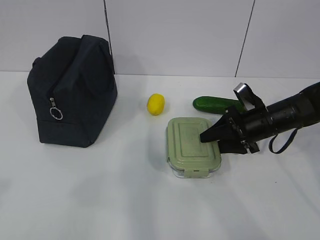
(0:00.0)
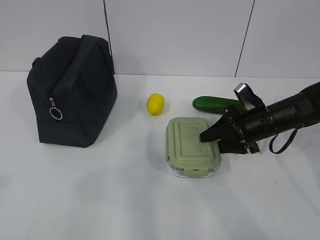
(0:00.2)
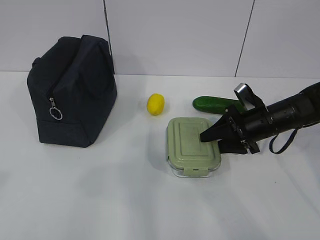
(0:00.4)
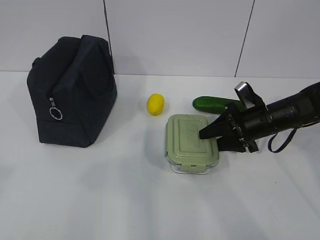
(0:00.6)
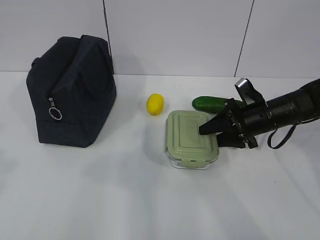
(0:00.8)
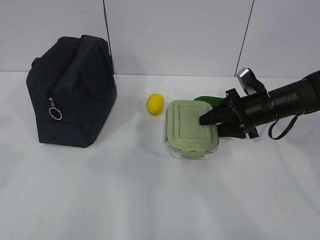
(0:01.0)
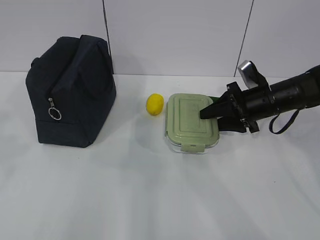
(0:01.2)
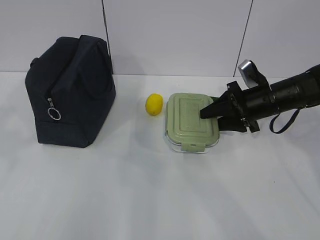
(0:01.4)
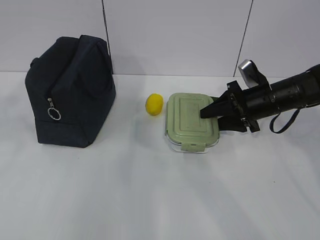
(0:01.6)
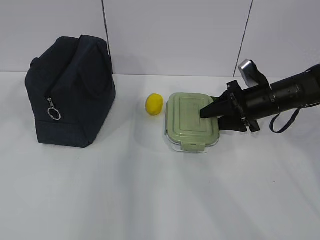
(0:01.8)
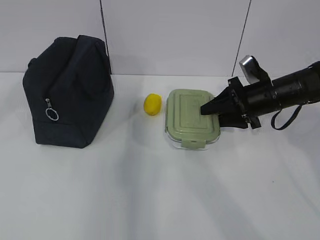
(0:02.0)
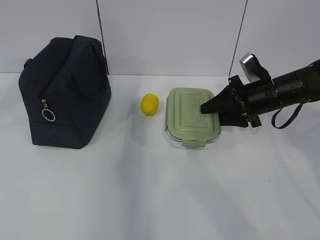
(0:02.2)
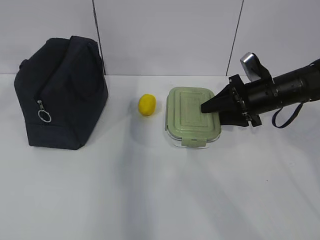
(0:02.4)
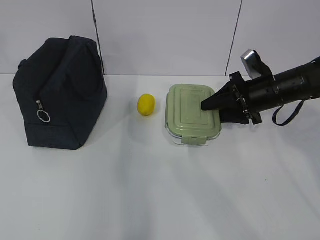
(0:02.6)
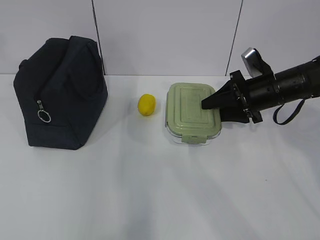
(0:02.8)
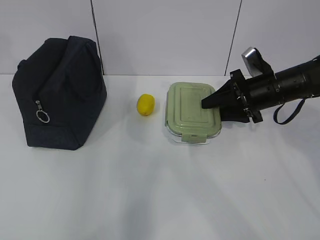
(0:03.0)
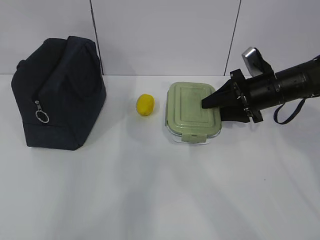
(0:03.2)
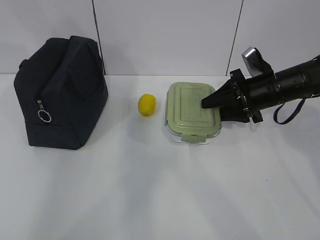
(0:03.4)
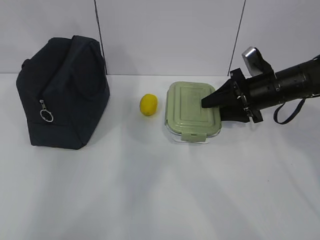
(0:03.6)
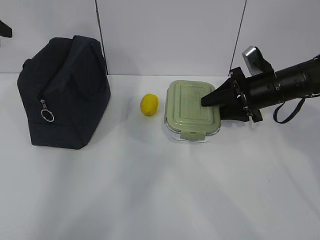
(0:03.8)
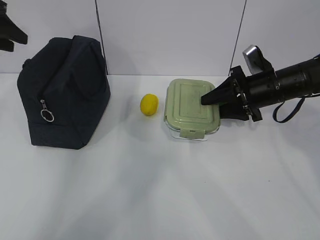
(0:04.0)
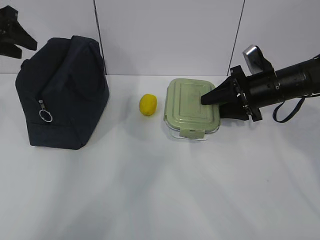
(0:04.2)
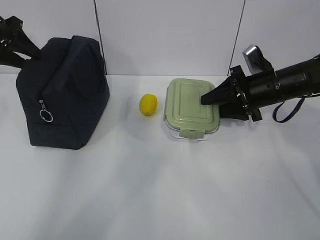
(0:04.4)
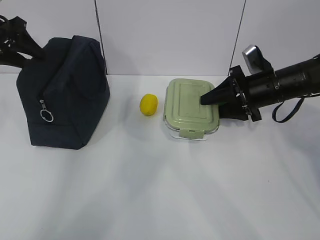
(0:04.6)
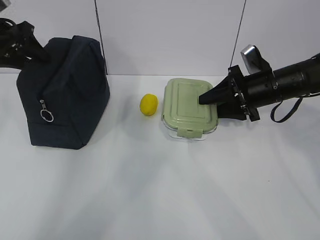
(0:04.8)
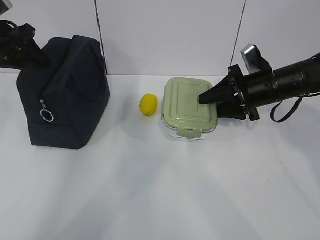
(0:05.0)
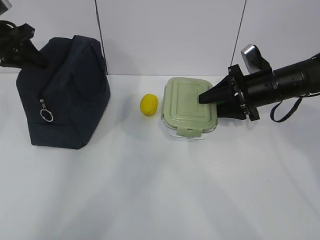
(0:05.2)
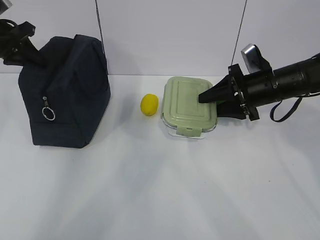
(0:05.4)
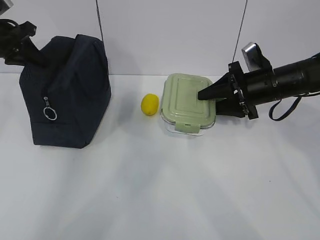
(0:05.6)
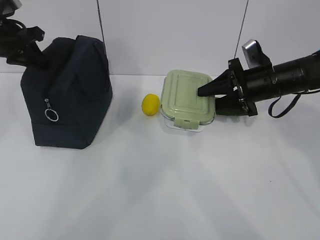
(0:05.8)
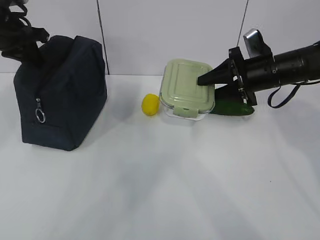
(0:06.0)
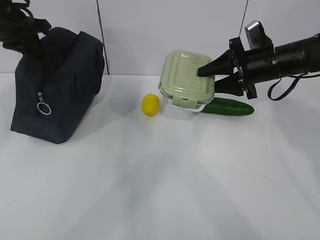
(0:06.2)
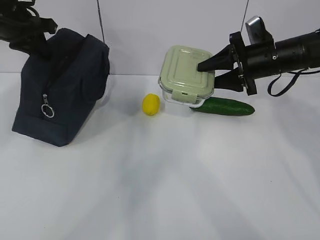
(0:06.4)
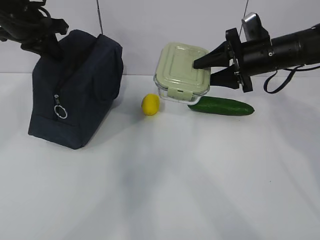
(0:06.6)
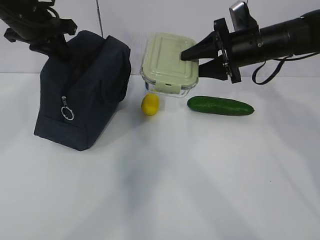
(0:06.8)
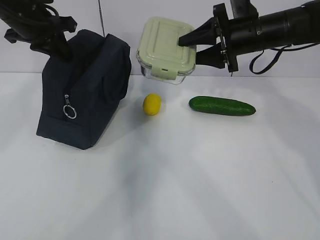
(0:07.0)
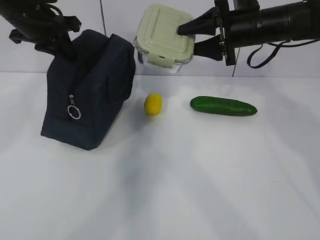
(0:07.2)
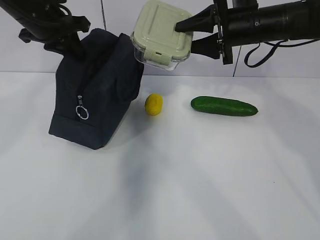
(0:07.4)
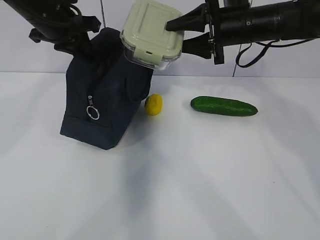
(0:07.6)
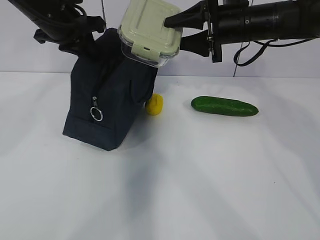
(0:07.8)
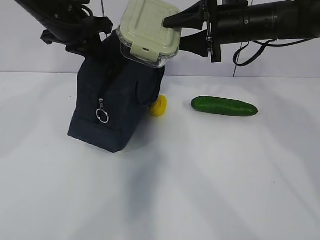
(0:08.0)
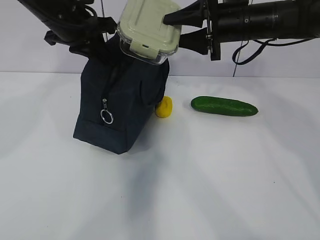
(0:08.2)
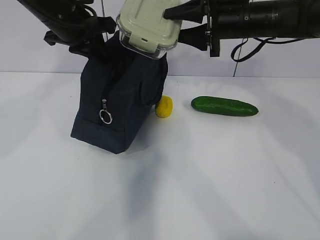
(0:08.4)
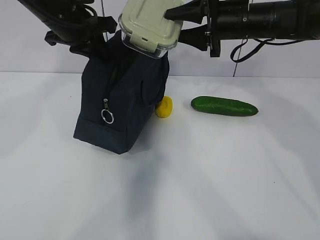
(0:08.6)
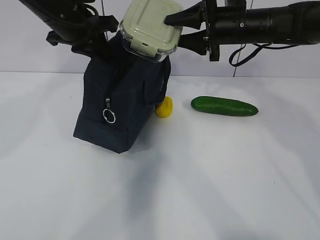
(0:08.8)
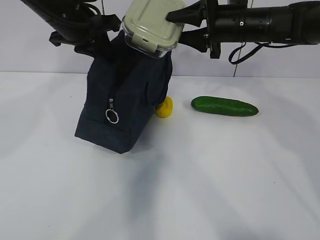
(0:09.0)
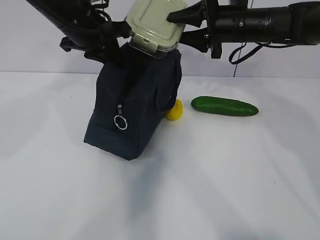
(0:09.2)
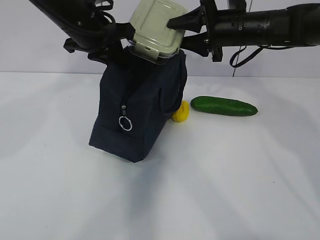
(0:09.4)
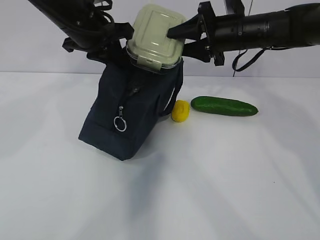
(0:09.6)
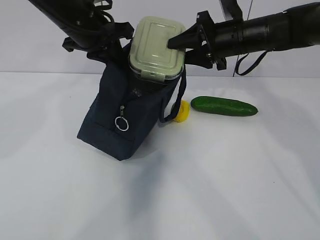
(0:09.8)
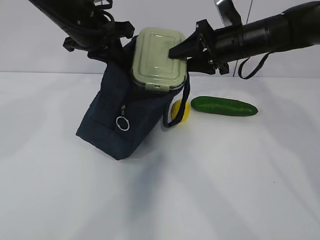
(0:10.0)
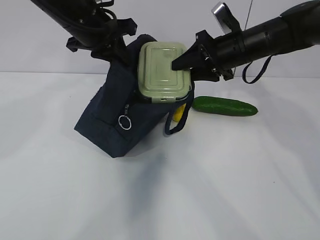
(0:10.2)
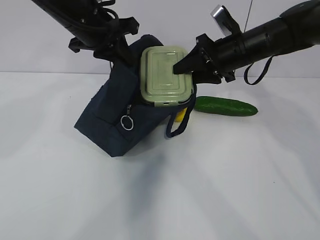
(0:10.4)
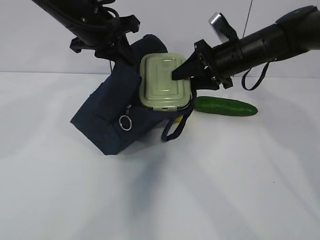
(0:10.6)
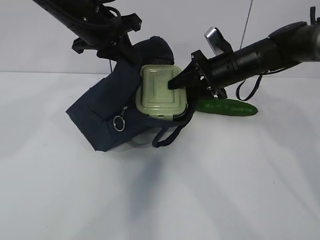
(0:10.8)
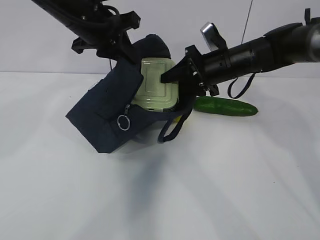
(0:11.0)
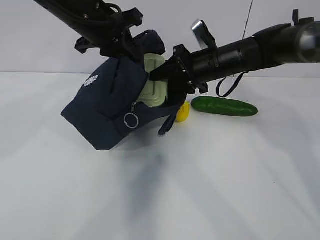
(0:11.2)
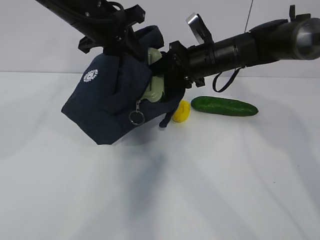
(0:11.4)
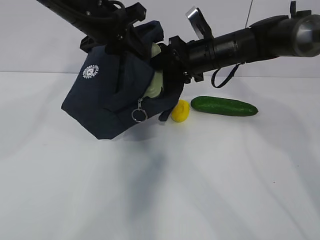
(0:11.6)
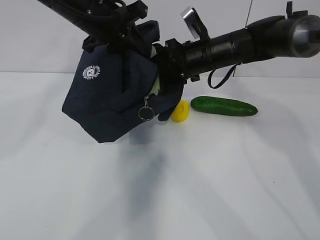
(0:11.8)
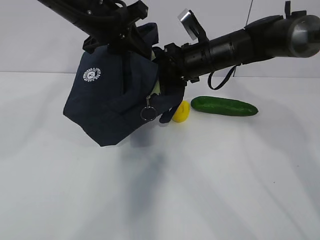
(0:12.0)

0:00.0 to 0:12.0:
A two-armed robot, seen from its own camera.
Step, 0:00.0 to 0:04.6: Grab the lunch bag with your left hand.
Step, 0:04.8 to 0:07.4: Place it into the bag with your right hand.
Step, 0:07.6 to 0:09.8: Grab the cucumber with your right hand.
0:00.0 to 0:01.6: The left gripper shifts some 10 cm forward.
0:01.6 to 0:03.0: The left gripper shifts about 20 cm forward.
0:03.0 to 0:04.4: The left gripper shifts about 10 cm forward and downward.
0:04.4 to 0:06.0: The left gripper travels to the right by about 5 cm, and closes up.
0:06.0 to 0:07.6: The right gripper moves upward and to the left, about 10 cm. The left gripper is displaced to the right by some 10 cm.
0:07.6 to 0:09.0: The grippers make only small movements.
0:10.4 to 0:12.0: The right gripper heads to the left, covering approximately 5 cm.

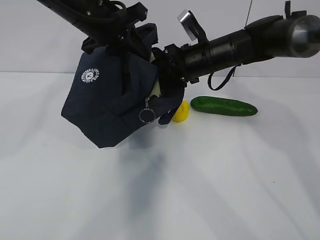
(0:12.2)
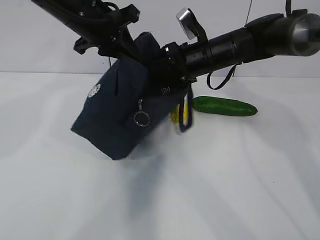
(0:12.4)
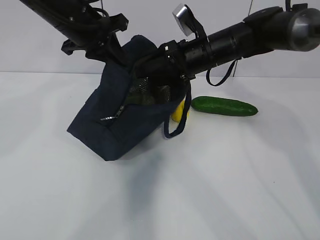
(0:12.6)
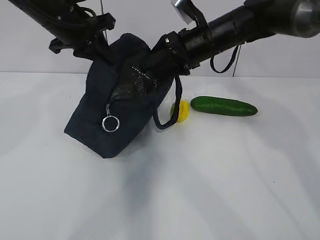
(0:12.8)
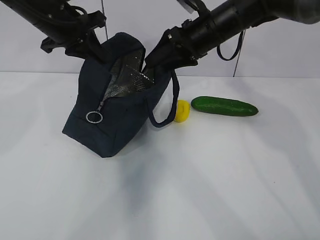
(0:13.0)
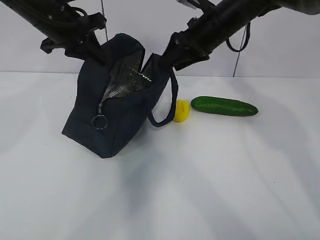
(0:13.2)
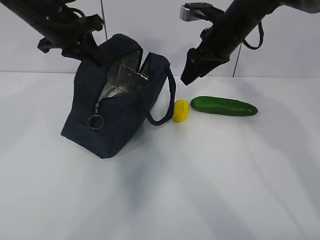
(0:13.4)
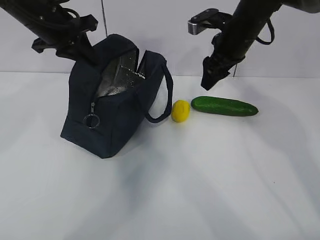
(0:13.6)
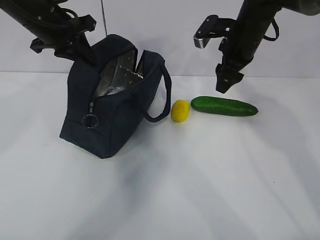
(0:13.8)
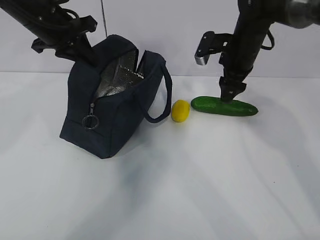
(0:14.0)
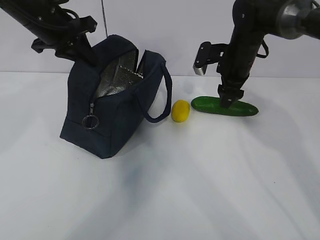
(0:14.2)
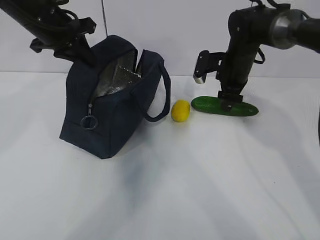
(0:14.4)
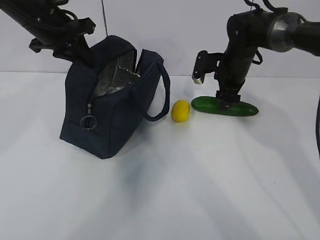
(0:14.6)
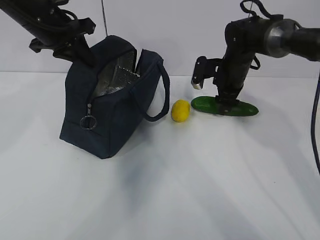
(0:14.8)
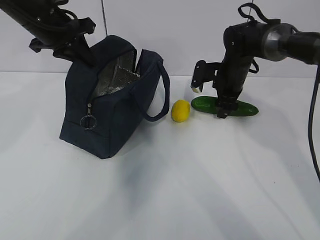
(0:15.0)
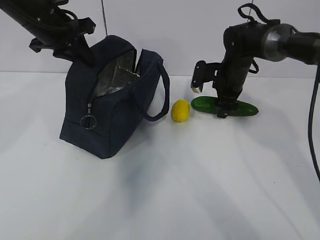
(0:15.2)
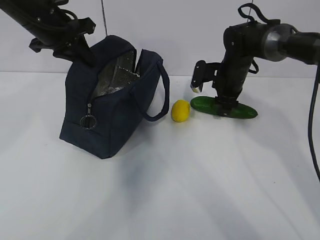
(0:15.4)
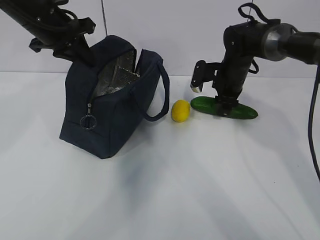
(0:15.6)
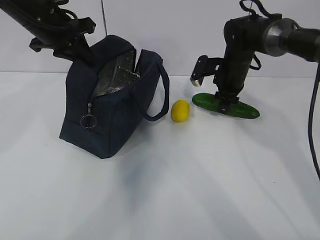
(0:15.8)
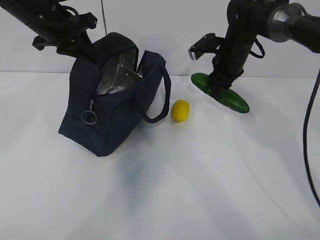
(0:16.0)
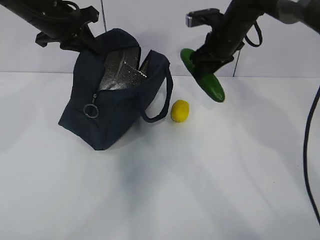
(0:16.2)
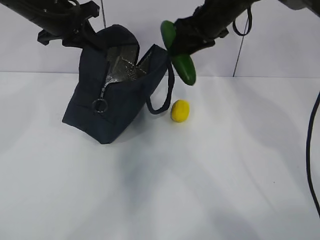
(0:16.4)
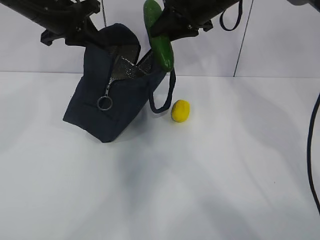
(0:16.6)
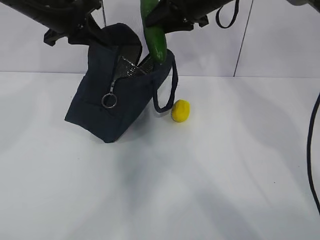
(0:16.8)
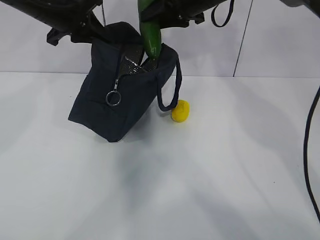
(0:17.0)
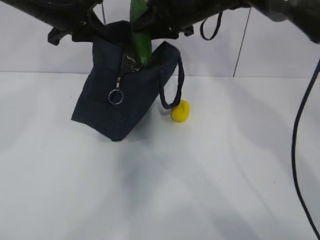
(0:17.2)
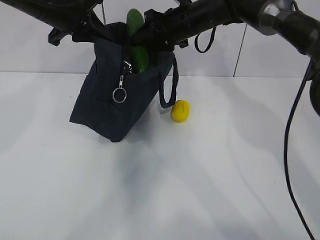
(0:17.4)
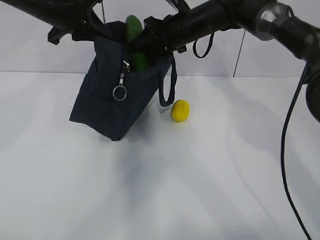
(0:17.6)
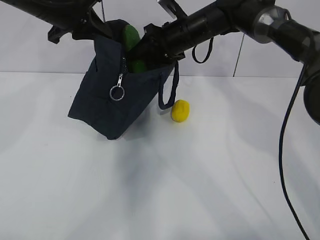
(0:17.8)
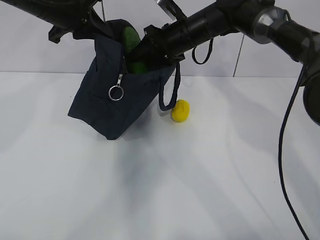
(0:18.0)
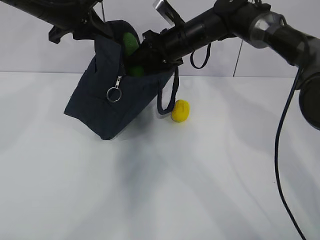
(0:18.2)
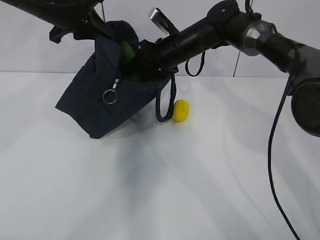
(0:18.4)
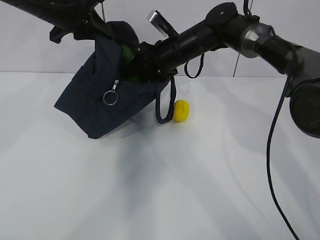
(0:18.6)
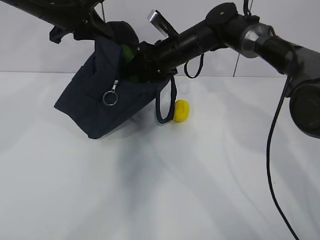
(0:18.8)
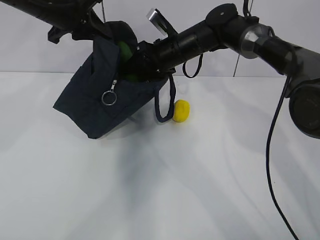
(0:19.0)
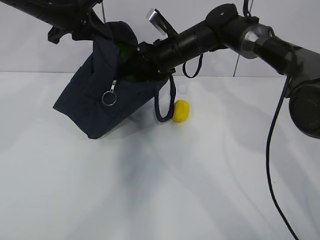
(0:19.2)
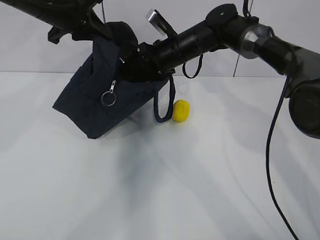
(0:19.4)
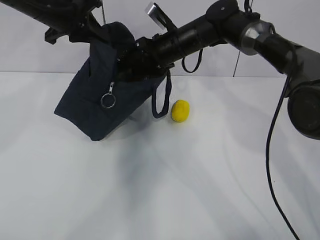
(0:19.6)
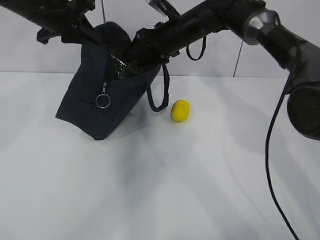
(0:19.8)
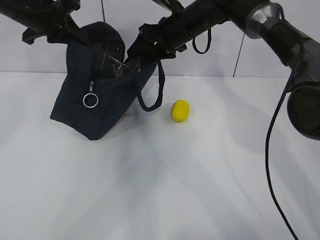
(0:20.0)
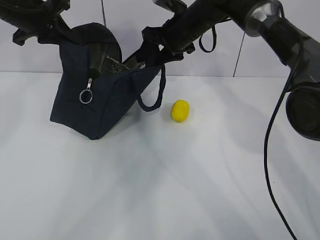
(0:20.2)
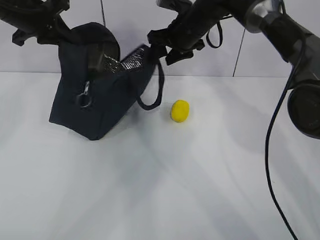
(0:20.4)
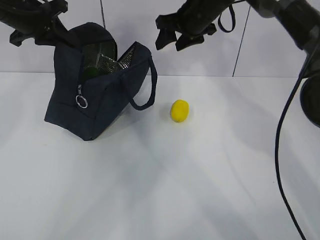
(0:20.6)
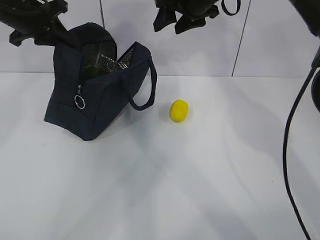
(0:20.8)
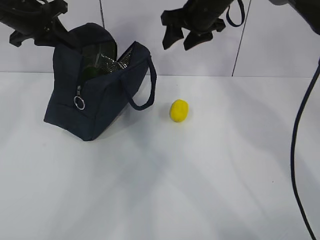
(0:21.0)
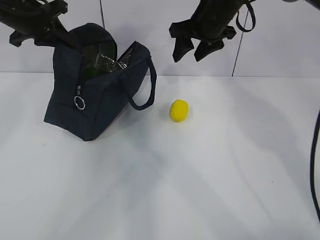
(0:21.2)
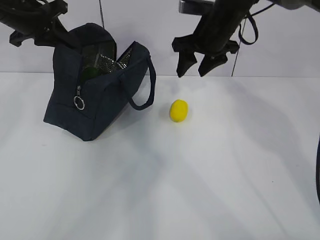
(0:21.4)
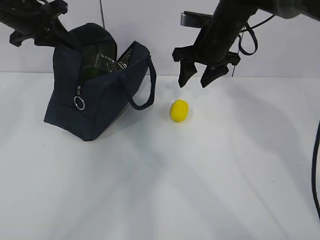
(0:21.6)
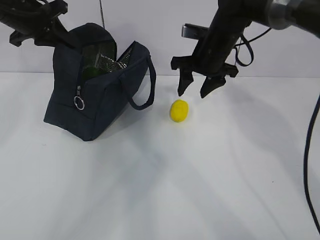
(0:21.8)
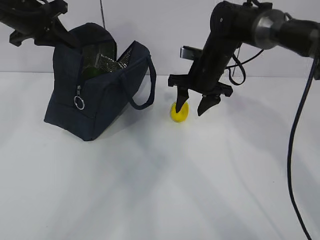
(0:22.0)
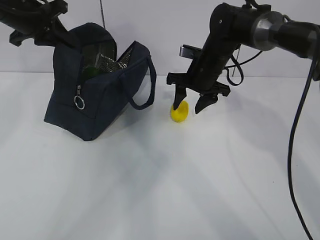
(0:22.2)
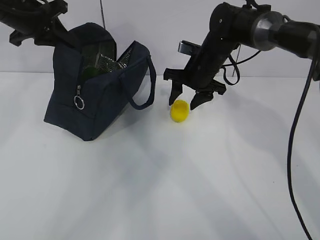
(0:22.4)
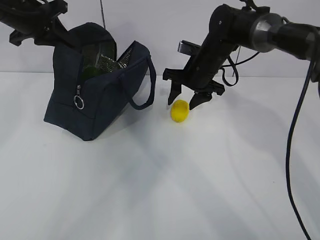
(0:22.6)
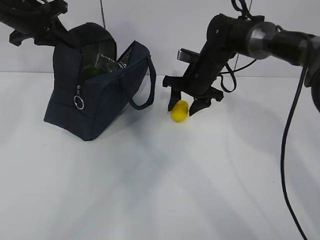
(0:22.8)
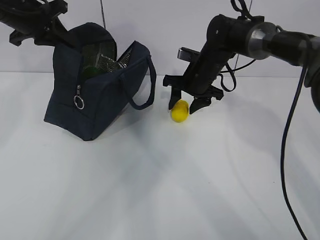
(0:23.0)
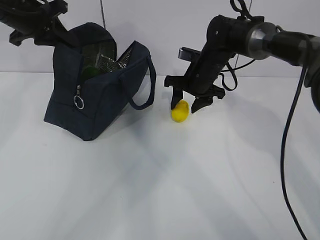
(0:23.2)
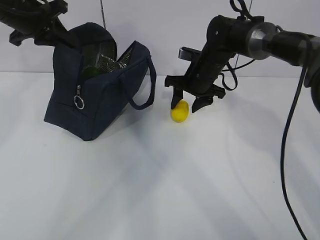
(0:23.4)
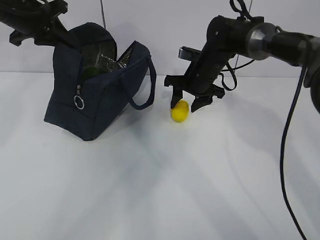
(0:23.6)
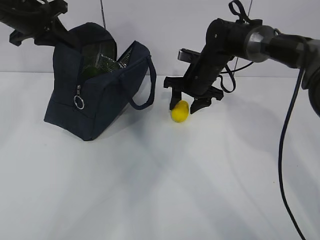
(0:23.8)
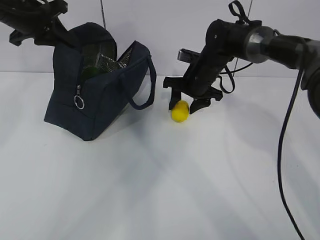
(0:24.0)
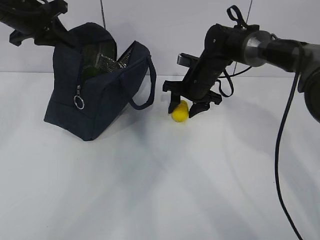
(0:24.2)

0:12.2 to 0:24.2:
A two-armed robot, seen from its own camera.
Step, 0:13.4 to 0:17.6: Grab the lemon with your right hand.
Step, 0:17.8 to 0:19.8: Secure the lunch bag with your left hand.
0:12.2 to 0:13.8: The right gripper heads to the right, covering roughly 5 cm. The left gripper moves to the left, about 10 cm.
0:13.8 to 0:15.2: The right gripper travels downward by about 10 cm.
0:15.2 to 0:16.6: The right gripper heads upward and to the left, covering about 20 cm.
0:16.6 to 0:18.2: The right gripper goes about 10 cm downward.
0:18.2 to 0:19.8: The grippers move only a little.
0:19.8 to 0:21.2: The right gripper shifts approximately 5 cm to the right; the left gripper travels to the left by roughly 5 cm.
0:21.2 to 0:22.6: The right gripper shifts roughly 10 cm downward.
0:22.6 to 0:24.2: The grippers move only a little.
